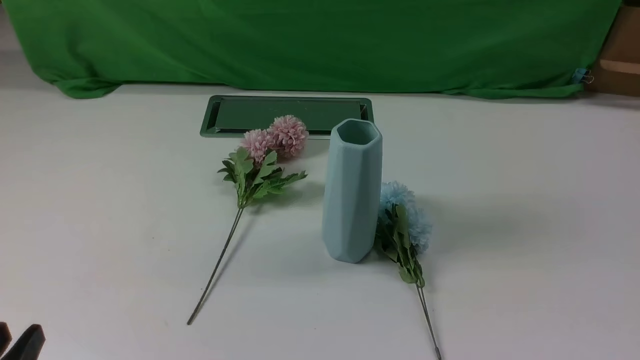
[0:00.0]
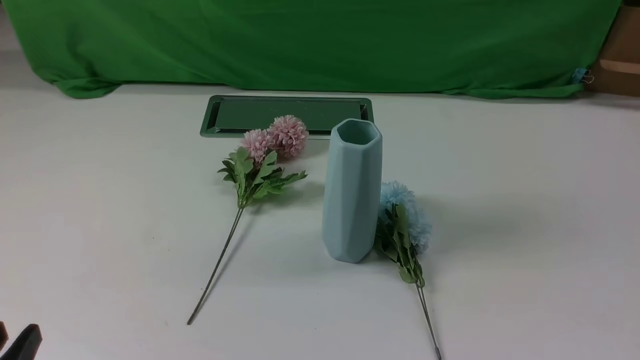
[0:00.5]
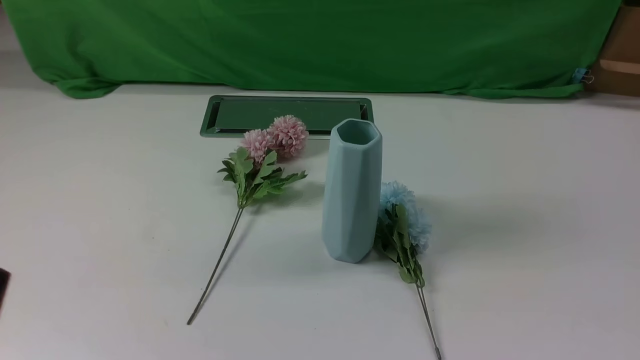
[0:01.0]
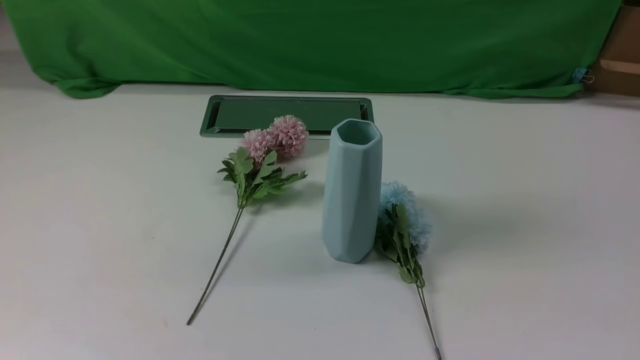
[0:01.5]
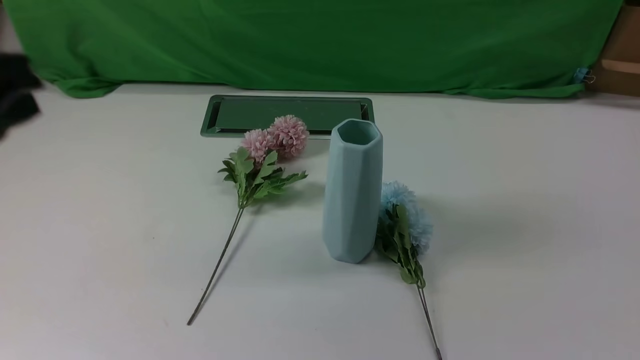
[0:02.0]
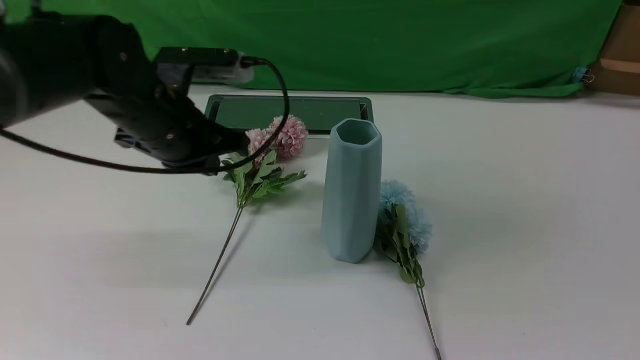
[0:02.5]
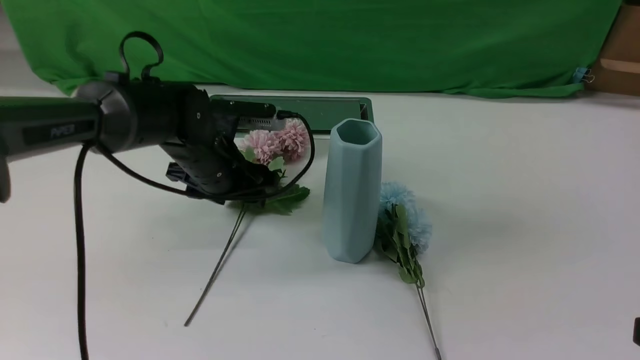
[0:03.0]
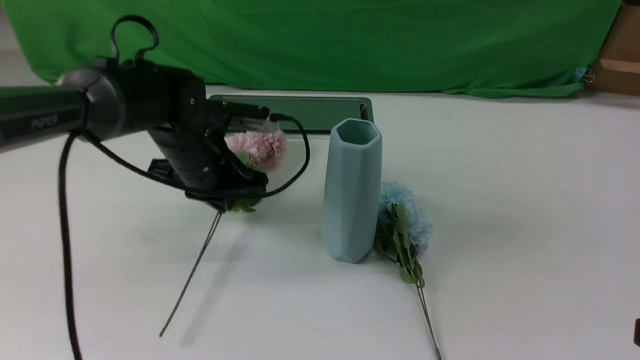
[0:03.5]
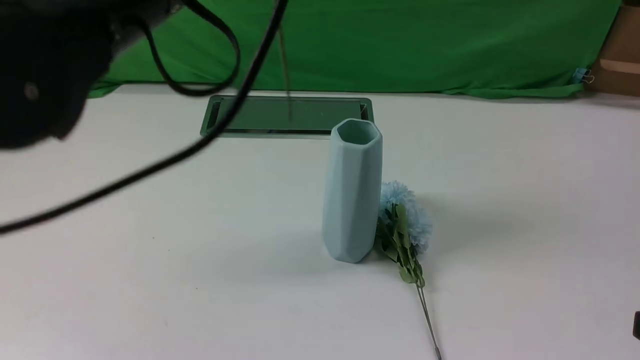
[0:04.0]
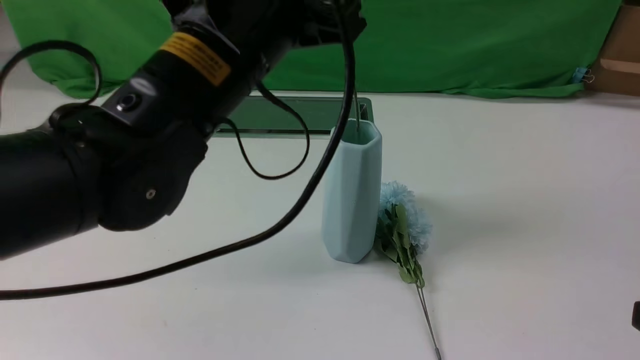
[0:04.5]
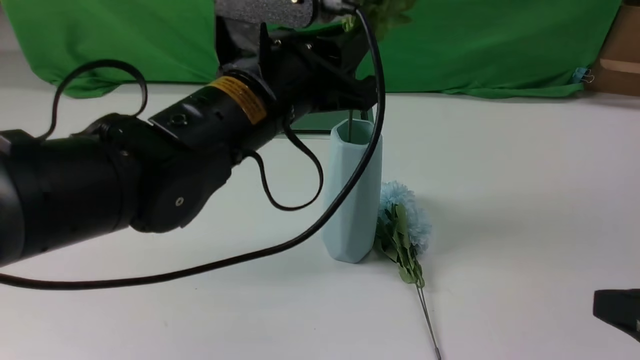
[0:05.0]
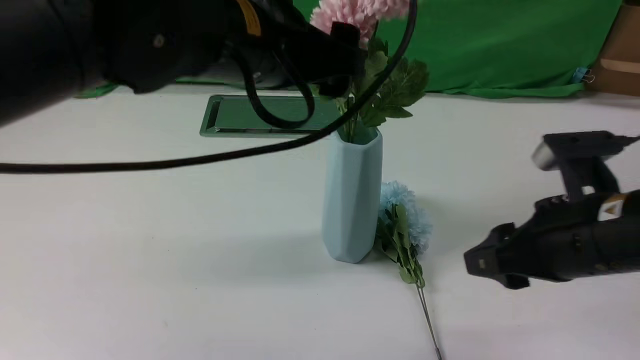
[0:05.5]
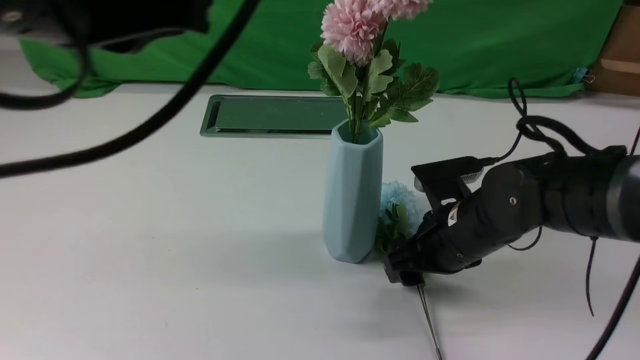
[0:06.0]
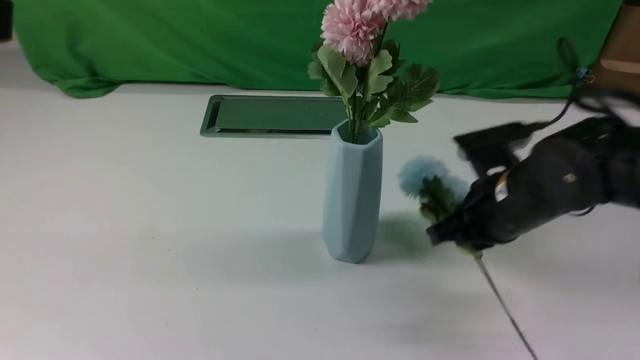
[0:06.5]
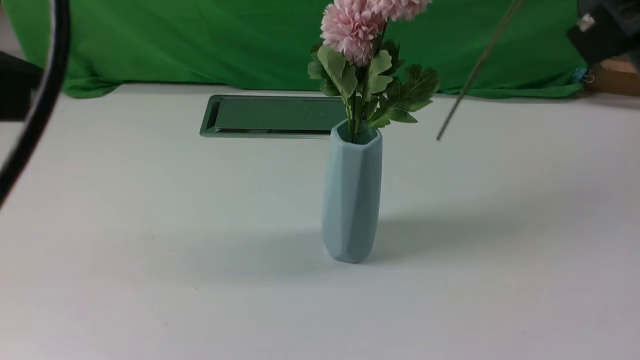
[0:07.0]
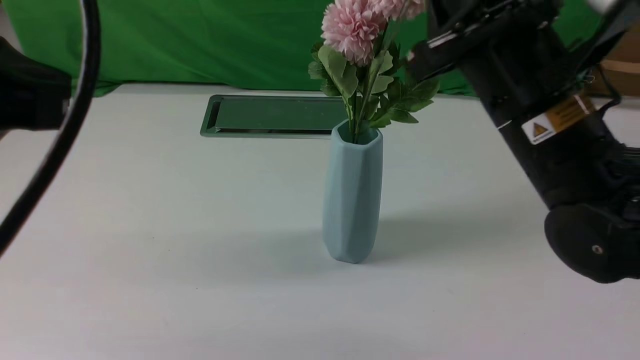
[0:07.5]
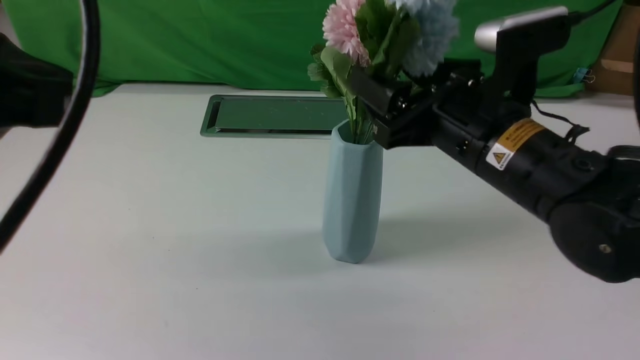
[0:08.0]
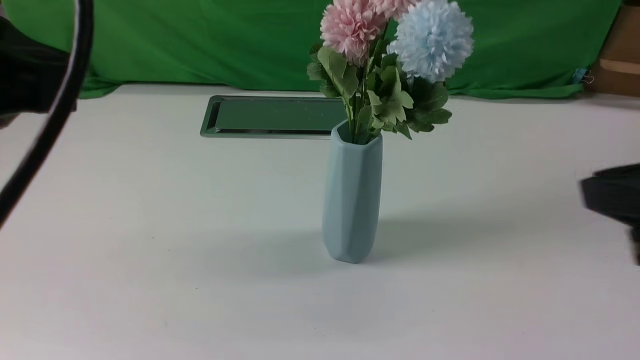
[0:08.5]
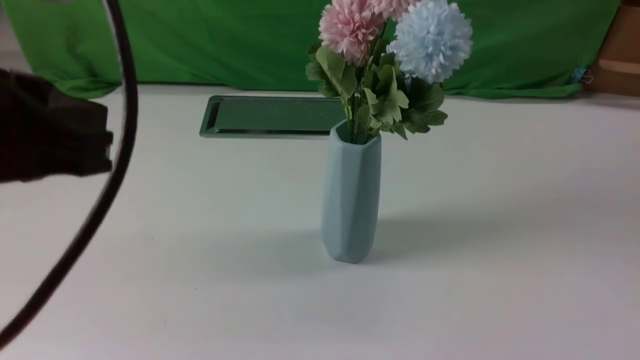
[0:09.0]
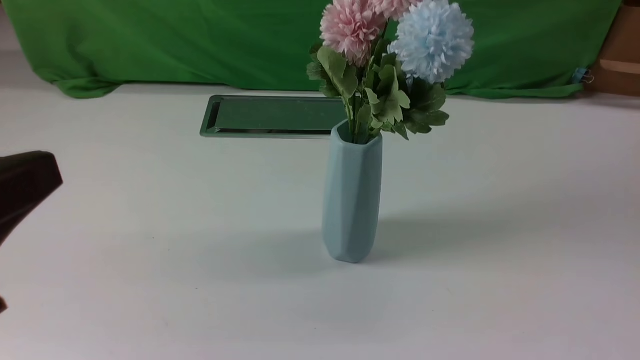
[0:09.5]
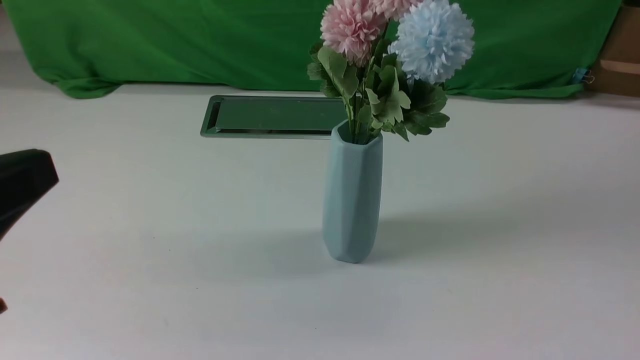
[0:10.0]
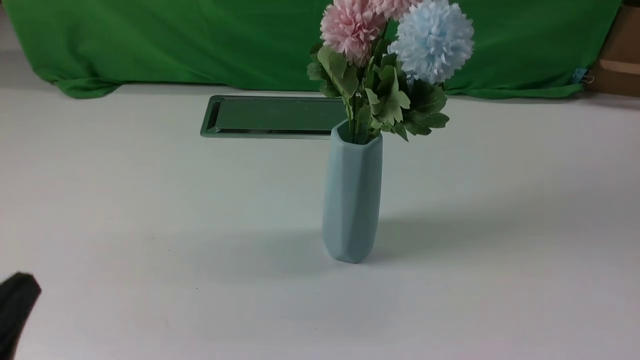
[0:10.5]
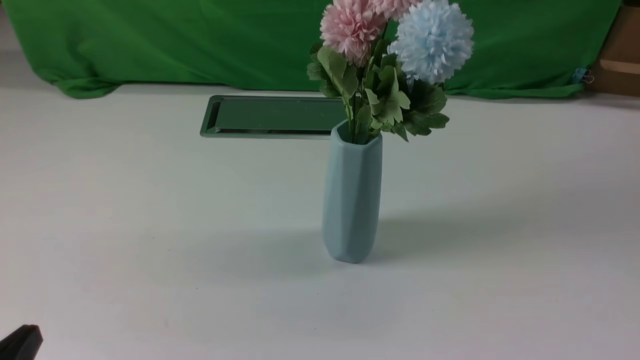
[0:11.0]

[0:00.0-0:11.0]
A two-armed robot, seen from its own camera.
Task of the whole recording: insert the flowers into the vase on the white table.
Step, 0:00.0 to 0:03.0: use the left arm to grab a bunch of fresh flowers.
Step, 0:03.5 to 0:05.0: use the left arm to insert the flowers into the vase.
Step, 0:05.5 to 0:06.0: use the right arm to grab a bunch of fresh flowers.
Step, 0:06.5 to 0:08.0: use the right arm to insert the flowers into the vase.
0:00.0 to 0:02.0: The left gripper goes approximately 25 cm upward and forward, and closes.
0:02.0 to 0:03.5: The right gripper changes place by approximately 5 cm, and opens up. Meanwhile the left gripper heads forward, downward and to the right, covering some 25 cm, and opens, then closes again.
0:03.5 to 0:05.5: The right gripper shifts approximately 15 cm forward and to the left. Meanwhile the left gripper goes up and down, some 15 cm each way, reversing 2 times, and opens.
0:05.5 to 0:07.5: The left gripper shifts roughly 20 cm backward and to the left, and closes up. The right gripper swings up and down, approximately 20 cm each way, with 2 reversals, and closes.
0:07.5 to 0:09.0: The right gripper is displaced backward and to the right by approximately 35 cm, and opens, then closes once more.
0:09.0 to 0:11.0: The left gripper goes some 20 cm downward.
